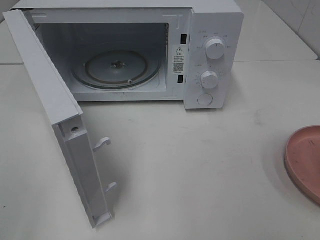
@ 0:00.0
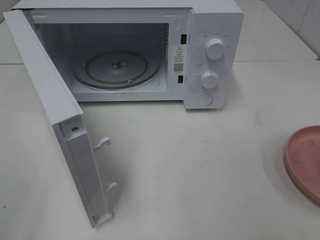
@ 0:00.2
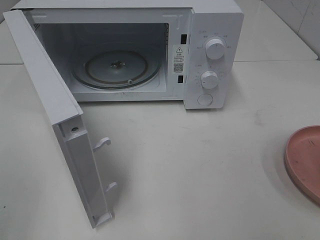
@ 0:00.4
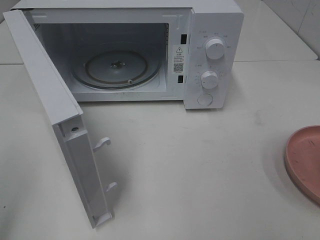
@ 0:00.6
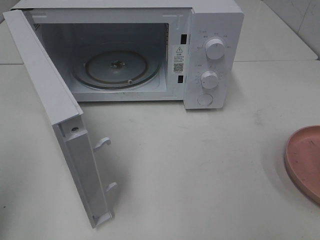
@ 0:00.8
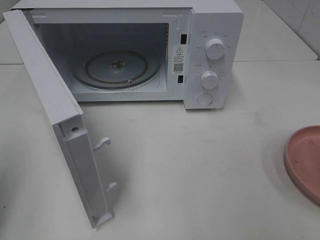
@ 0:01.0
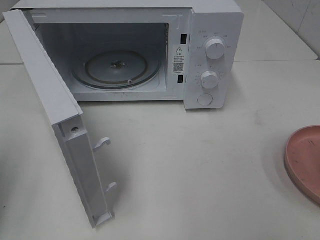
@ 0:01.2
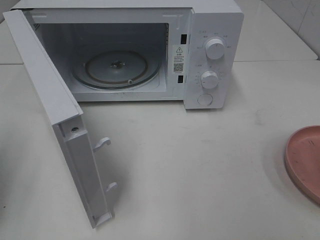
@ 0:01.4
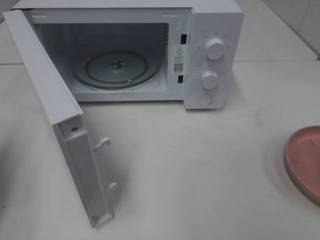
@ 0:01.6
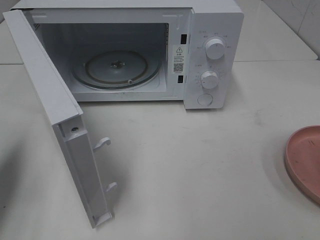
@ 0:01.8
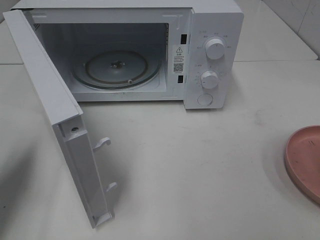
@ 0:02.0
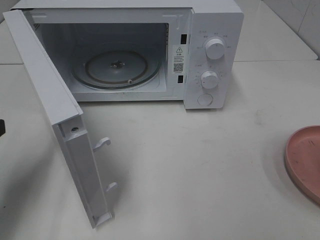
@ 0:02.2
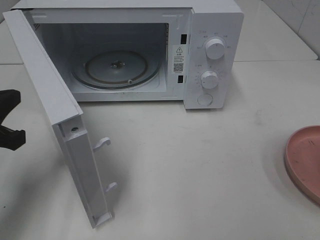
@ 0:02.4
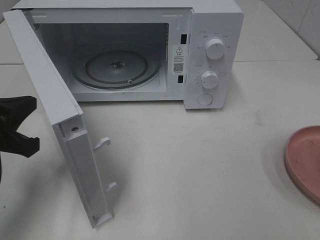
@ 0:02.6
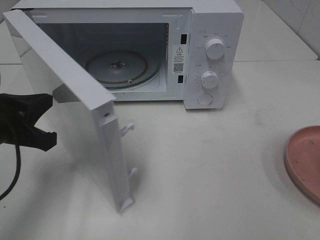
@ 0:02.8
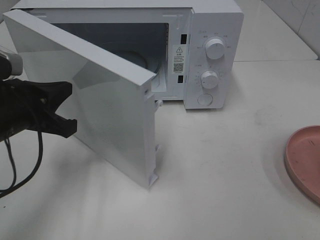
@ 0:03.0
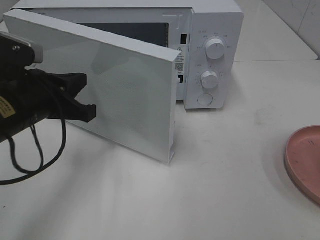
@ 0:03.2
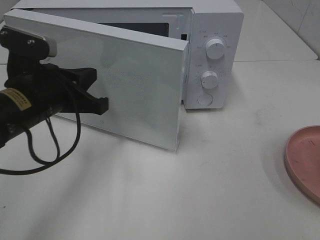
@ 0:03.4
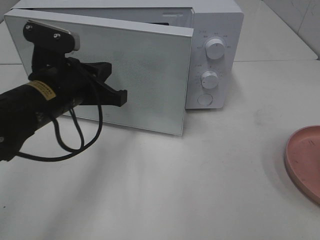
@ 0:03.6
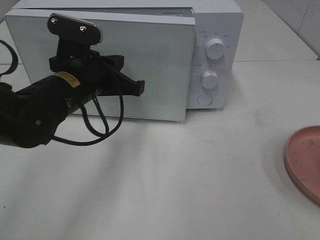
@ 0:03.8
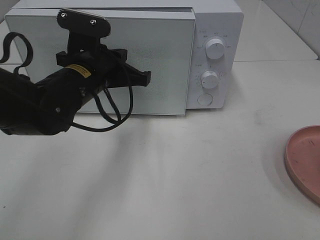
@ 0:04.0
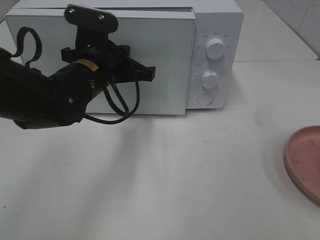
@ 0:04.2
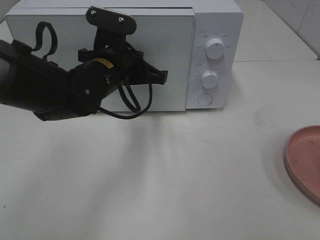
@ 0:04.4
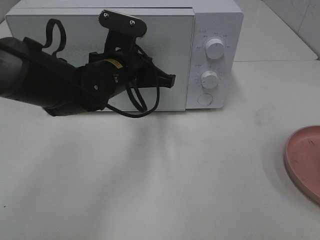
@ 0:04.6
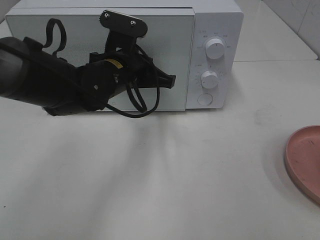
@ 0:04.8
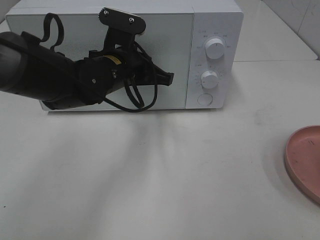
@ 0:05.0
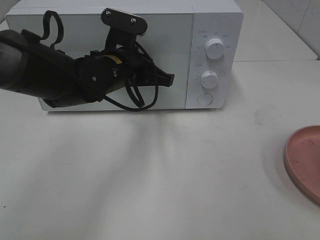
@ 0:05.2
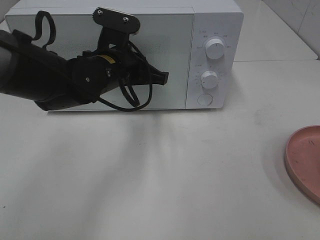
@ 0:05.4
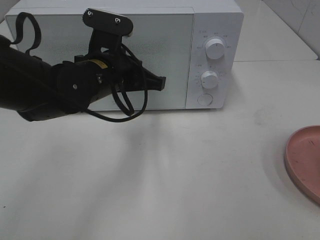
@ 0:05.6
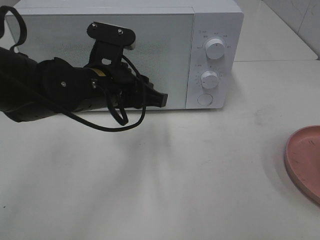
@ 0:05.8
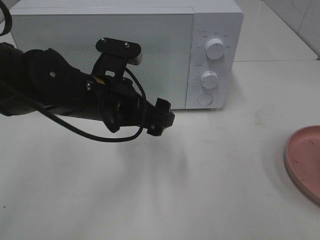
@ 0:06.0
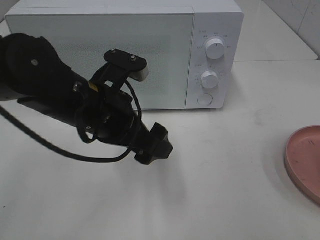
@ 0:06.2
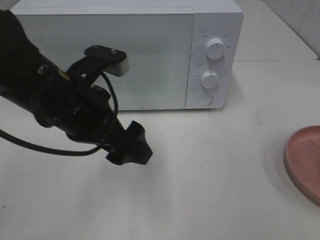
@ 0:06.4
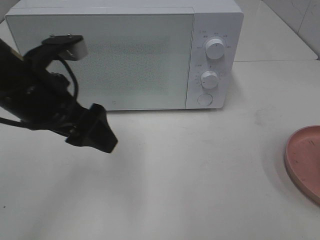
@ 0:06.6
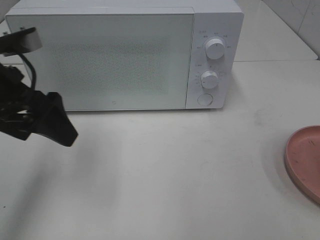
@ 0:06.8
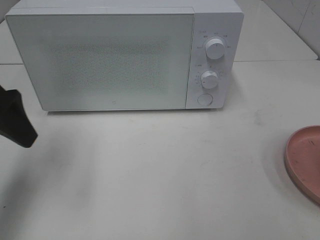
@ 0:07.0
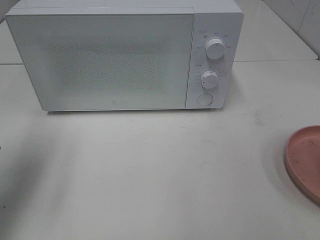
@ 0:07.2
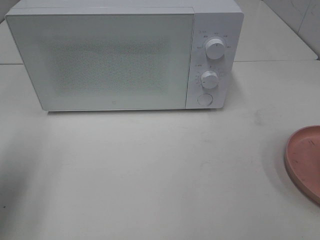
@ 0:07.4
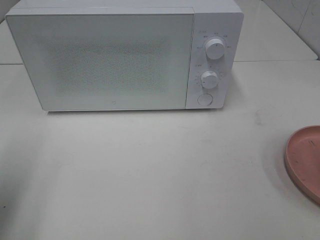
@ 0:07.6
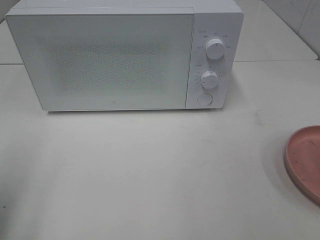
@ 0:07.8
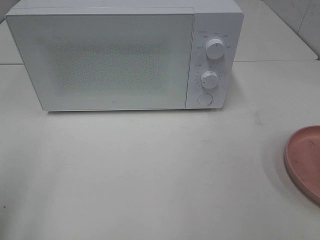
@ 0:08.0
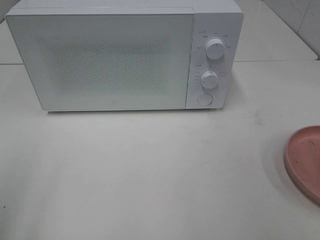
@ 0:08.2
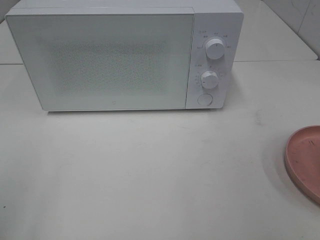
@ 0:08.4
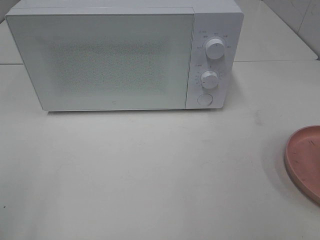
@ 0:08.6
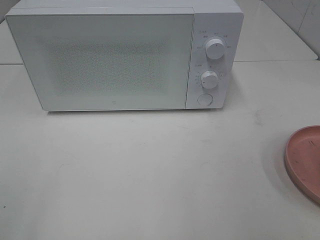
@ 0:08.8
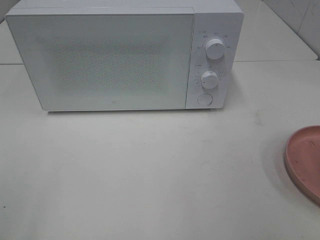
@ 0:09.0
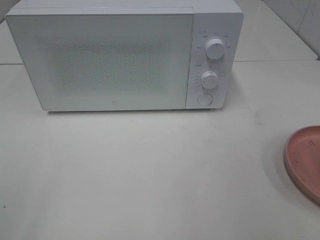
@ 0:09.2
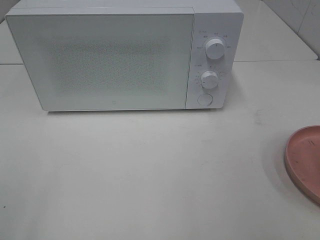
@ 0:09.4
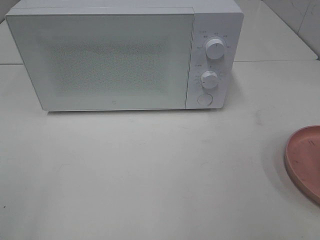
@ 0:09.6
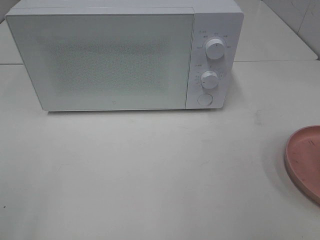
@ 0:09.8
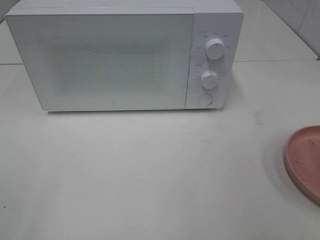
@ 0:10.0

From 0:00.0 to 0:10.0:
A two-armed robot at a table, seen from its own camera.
Task of the whole recording: Heat the burger.
Step, from 0:00.0 to 0:05.8: Left hand: close the microwave door.
From 0:01.4 to 0:02.8: The left gripper shifts some 15 cm to the right, downward and forward.
From 0:02.8 to 0:04.2: The left gripper goes some 20 cm to the right and forward.
From 0:04.2 to 0:05.8: The left gripper opens up.
From 0:05.8 to 0:07.2: The left gripper moves to the left, about 20 cm, and opens its fingers.
From 0:07.2 to 0:08.6: The left gripper heads backward, covering approximately 20 cm.

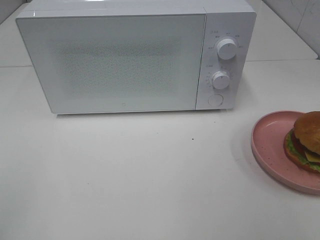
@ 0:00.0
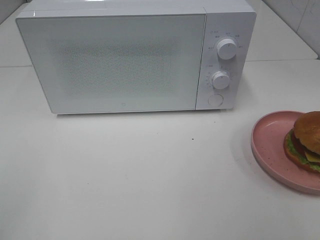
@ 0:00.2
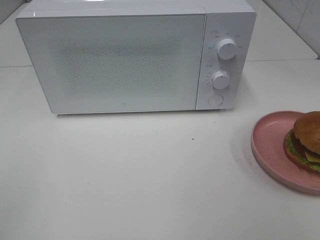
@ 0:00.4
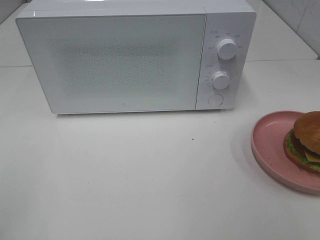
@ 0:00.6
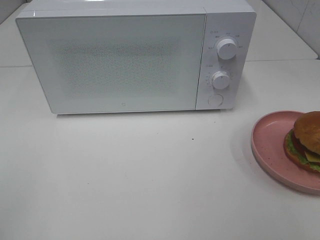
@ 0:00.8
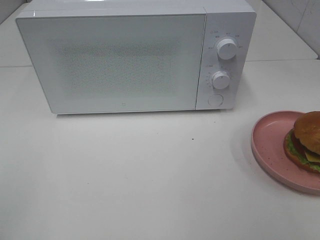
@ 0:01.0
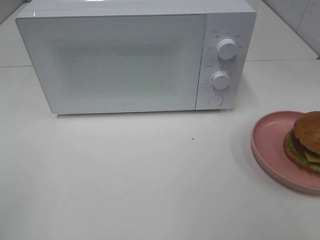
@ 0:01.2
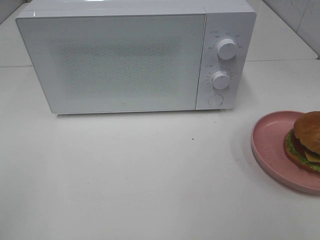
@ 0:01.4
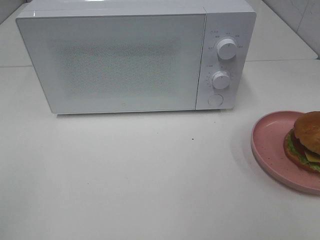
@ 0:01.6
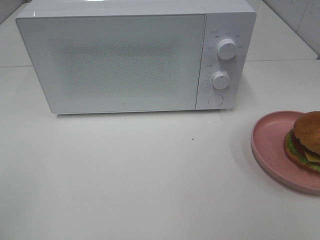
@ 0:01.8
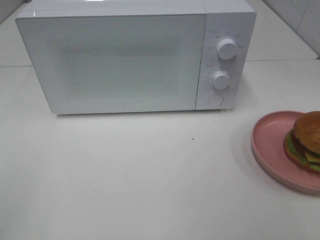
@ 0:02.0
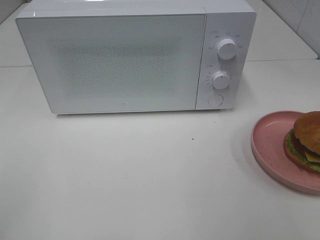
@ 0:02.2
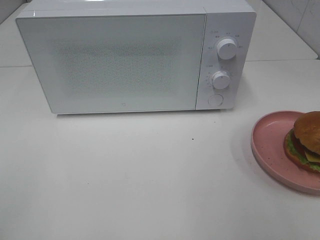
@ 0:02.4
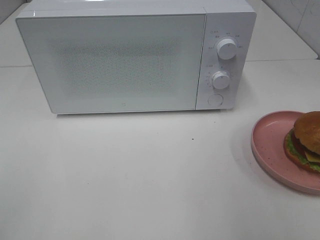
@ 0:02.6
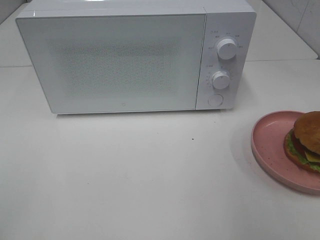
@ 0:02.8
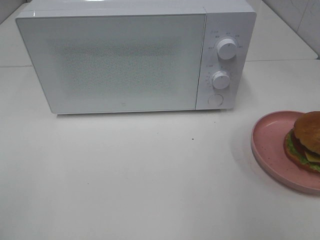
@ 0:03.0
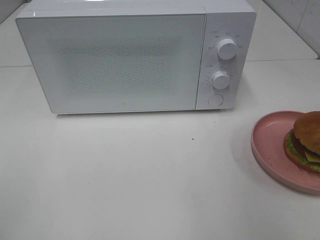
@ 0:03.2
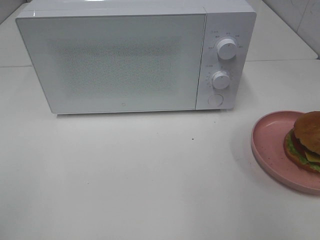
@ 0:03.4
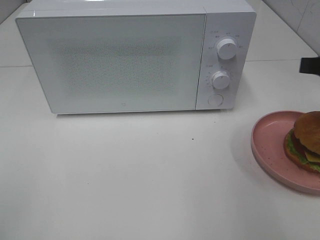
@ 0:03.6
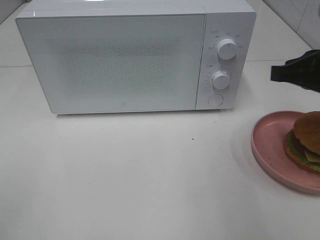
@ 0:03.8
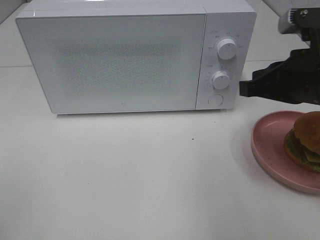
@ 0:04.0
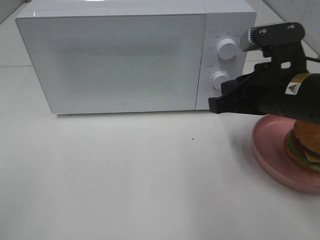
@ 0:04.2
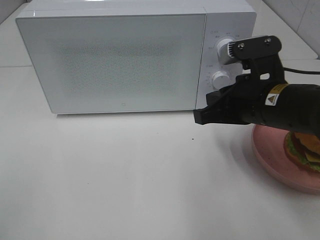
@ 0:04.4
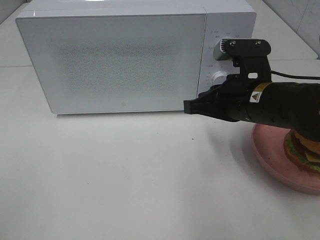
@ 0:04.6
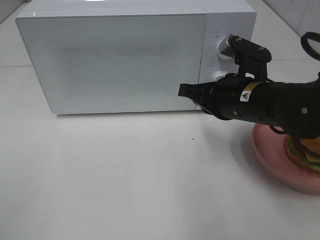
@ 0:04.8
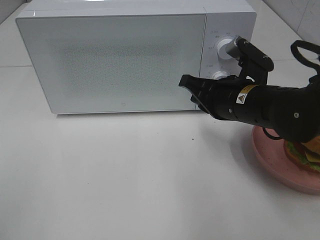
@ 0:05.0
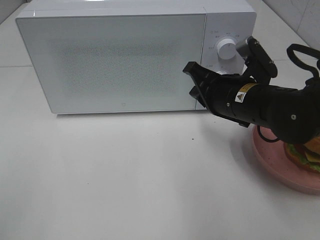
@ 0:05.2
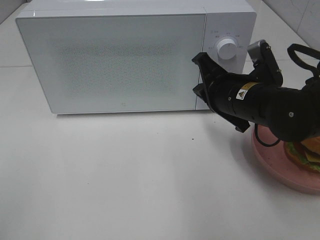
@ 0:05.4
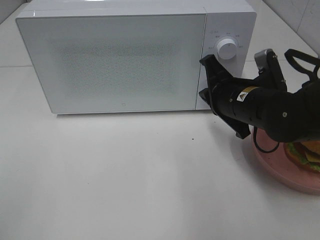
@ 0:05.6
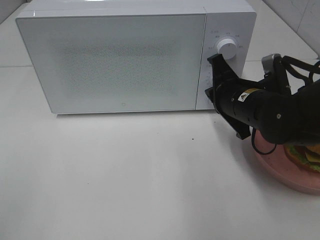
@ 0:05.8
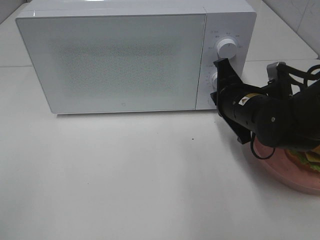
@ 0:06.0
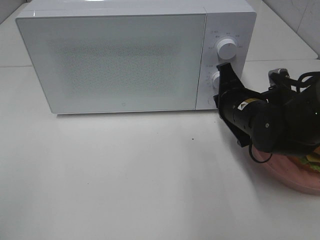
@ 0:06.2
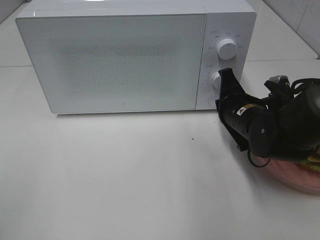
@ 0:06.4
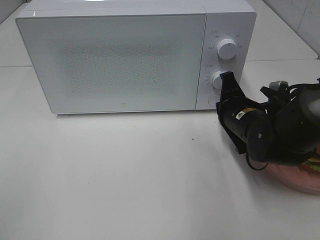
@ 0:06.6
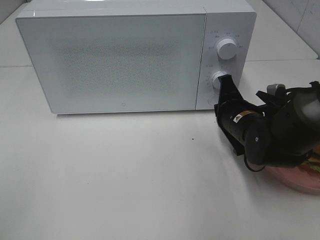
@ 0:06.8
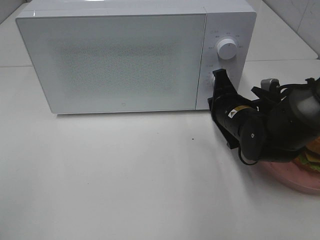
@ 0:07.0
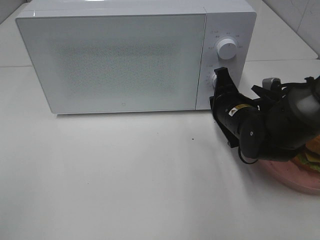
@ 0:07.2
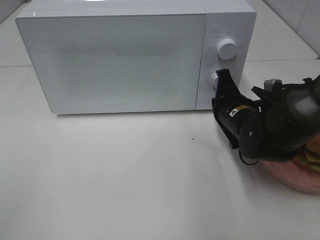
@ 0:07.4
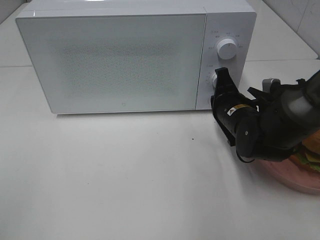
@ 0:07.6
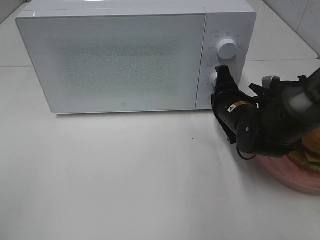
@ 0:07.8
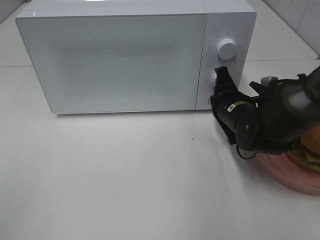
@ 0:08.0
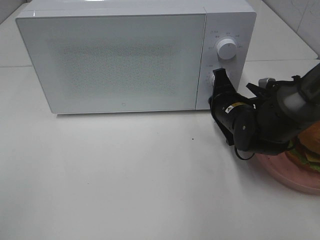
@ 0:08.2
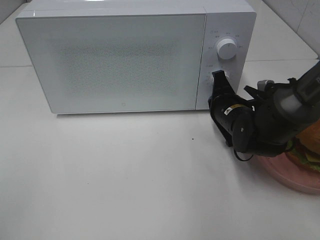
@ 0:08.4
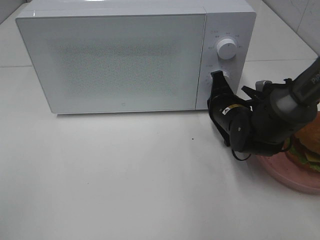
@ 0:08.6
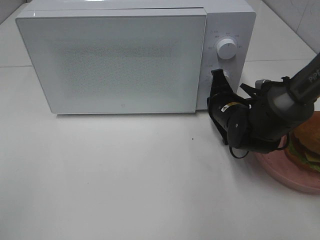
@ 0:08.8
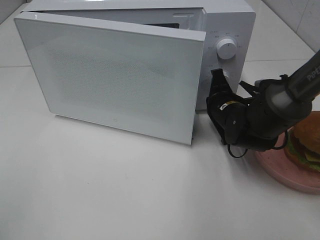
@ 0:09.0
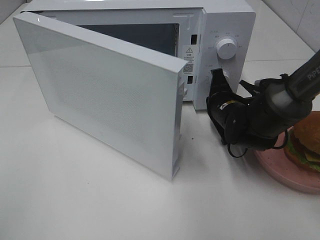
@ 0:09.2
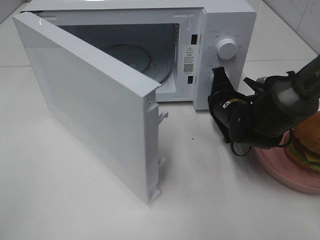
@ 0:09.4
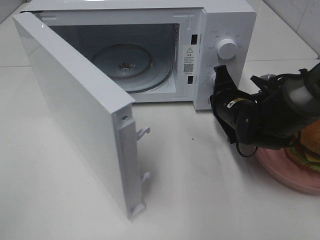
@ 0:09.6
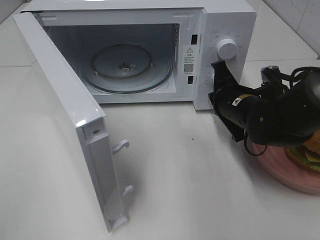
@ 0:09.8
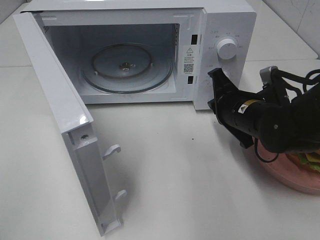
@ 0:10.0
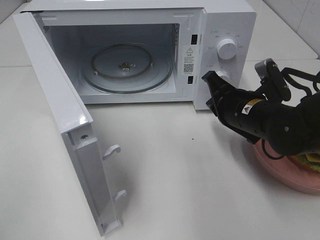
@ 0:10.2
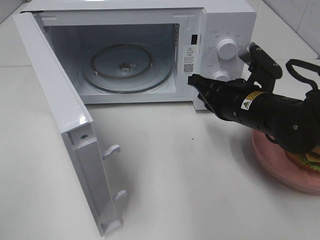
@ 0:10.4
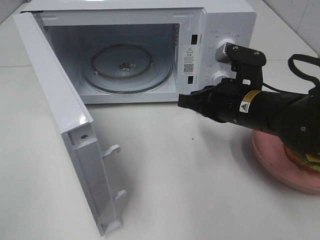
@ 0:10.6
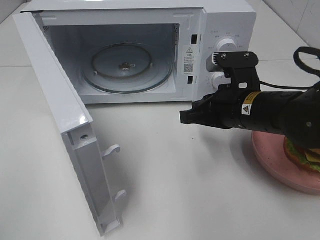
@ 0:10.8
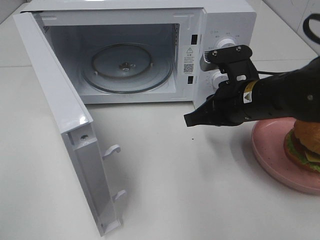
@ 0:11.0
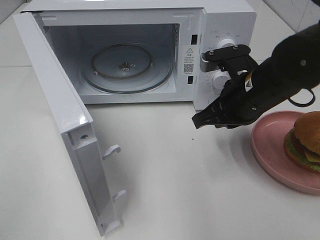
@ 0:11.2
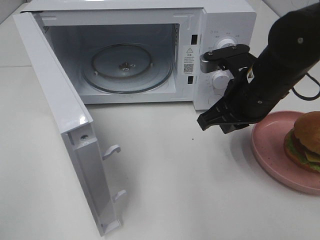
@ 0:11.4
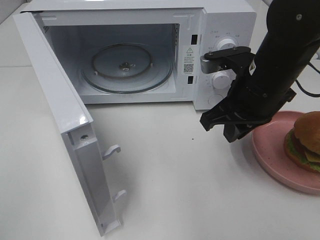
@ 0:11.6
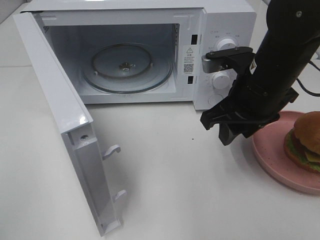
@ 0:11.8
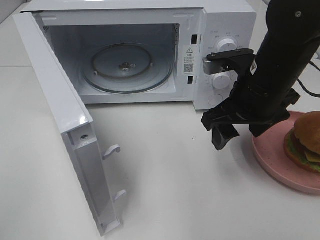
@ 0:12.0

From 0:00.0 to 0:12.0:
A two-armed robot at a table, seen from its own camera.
Task of the whole recording: Heat the burger.
Step, from 0:00.0 to 0:09.6: Right hand: press the switch.
From 0:00.0 to 0:01.6: Both grippers stay about where they are.
From 0:03.0 to 0:04.4: The right gripper heads to the left, downward and forward, covering some 20 cm, and closes.
From 0:04.4 to 0:06.0: The right gripper shifts about 5 cm downward and forward.
From 0:06.0 to 0:07.6: The grippers stay close to where they were, moving slightly.
From 0:07.6 to 0:09.0: There are only small adjustments of the grippers.
From 0:09.0 to 0:10.4: The right gripper travels upward and backward by approximately 10 cm.
From 0:10.4 to 0:12.0: The right gripper travels upward by roughly 5 cm, and opens its fingers.
